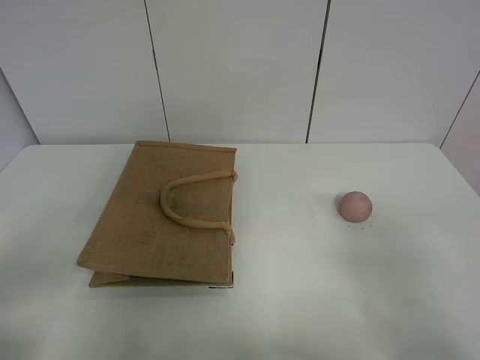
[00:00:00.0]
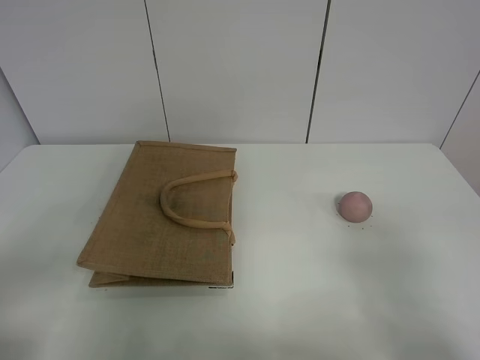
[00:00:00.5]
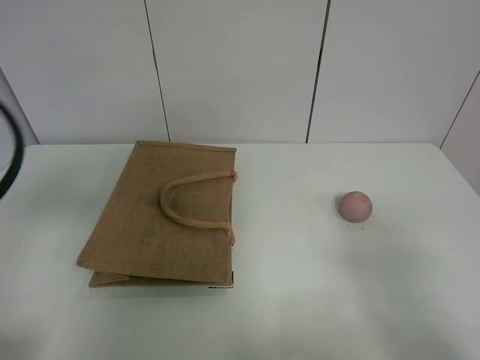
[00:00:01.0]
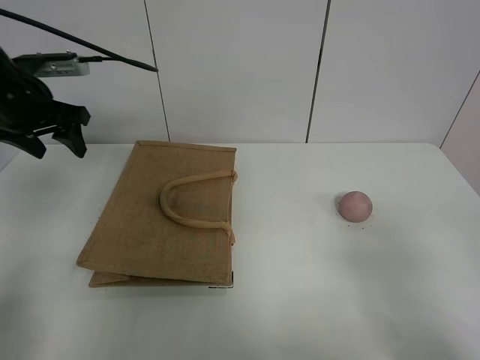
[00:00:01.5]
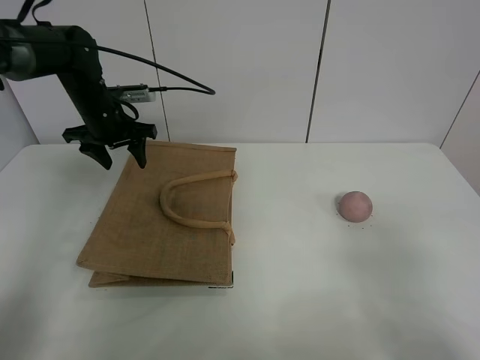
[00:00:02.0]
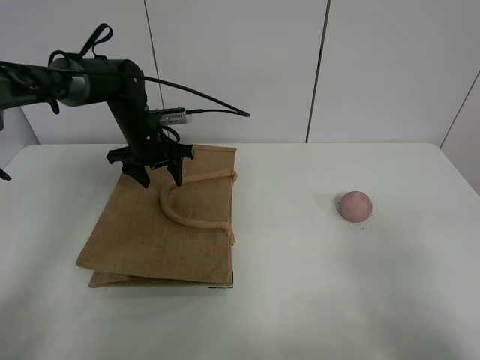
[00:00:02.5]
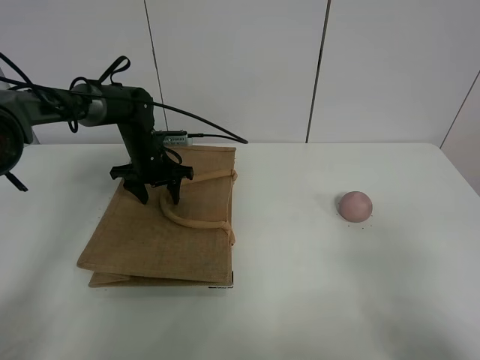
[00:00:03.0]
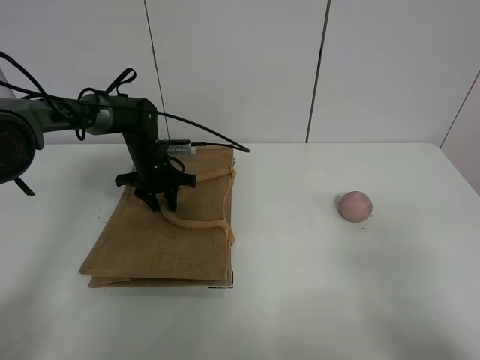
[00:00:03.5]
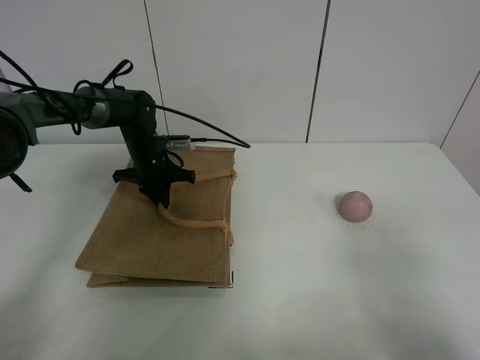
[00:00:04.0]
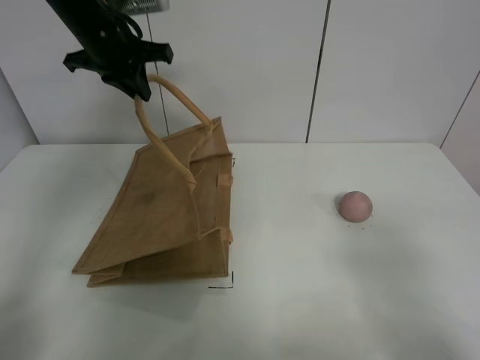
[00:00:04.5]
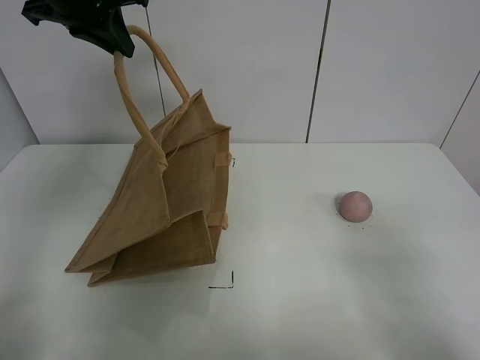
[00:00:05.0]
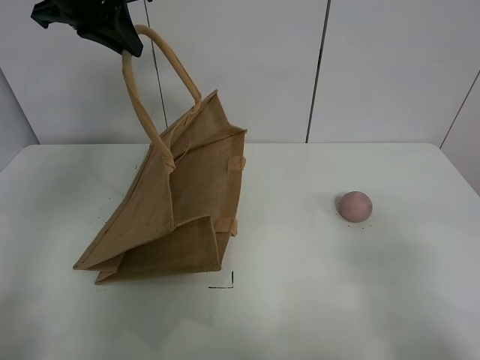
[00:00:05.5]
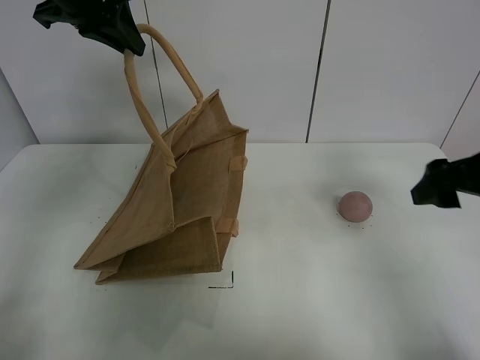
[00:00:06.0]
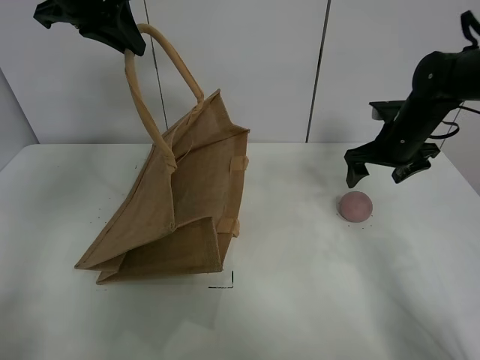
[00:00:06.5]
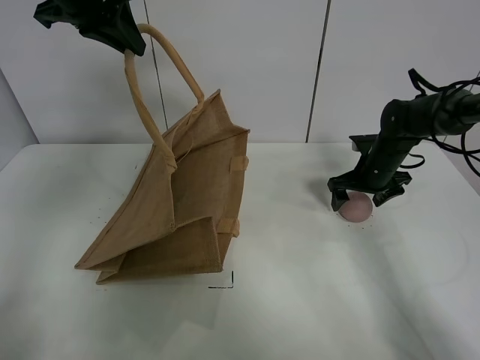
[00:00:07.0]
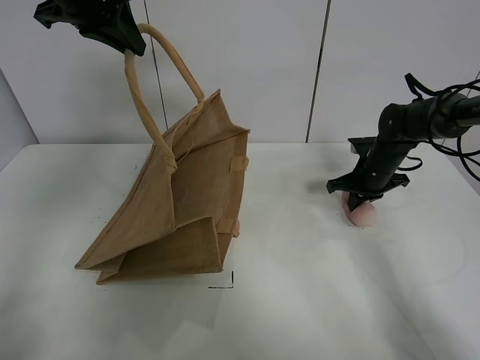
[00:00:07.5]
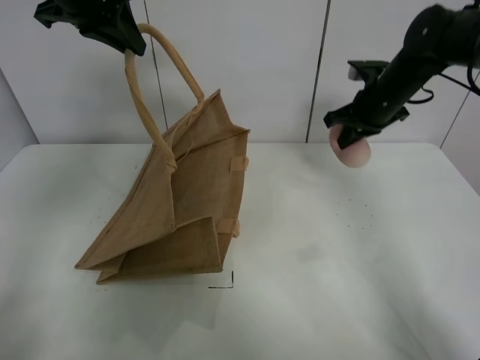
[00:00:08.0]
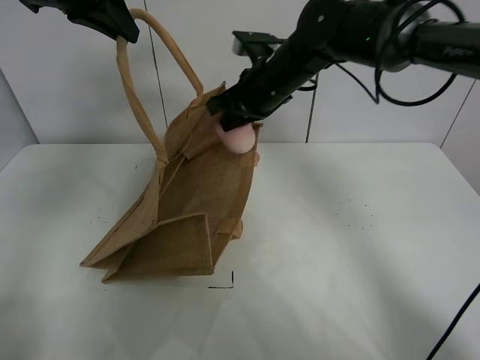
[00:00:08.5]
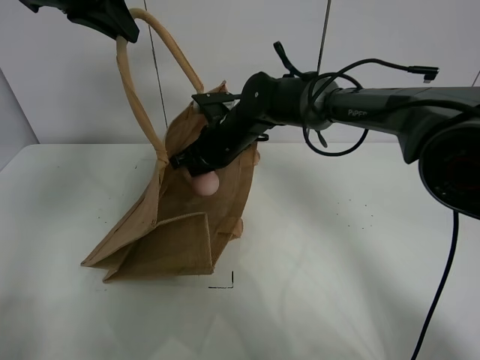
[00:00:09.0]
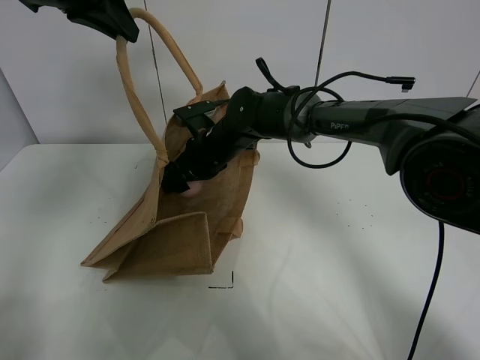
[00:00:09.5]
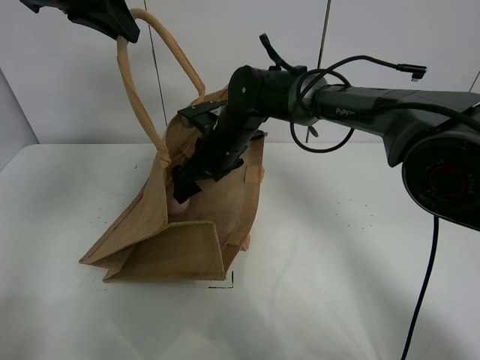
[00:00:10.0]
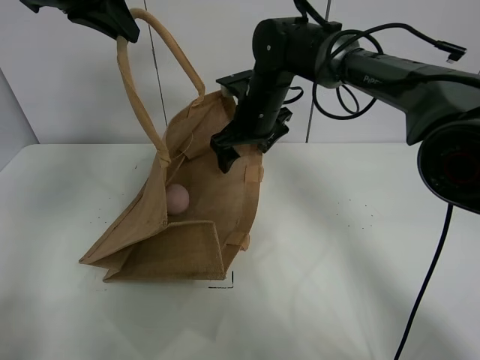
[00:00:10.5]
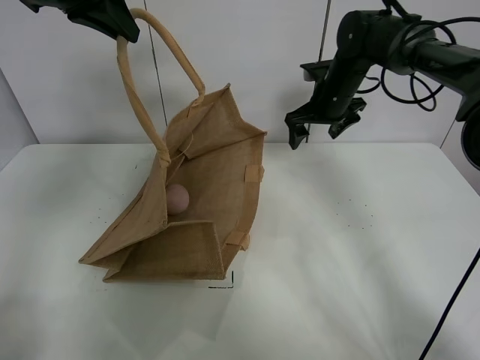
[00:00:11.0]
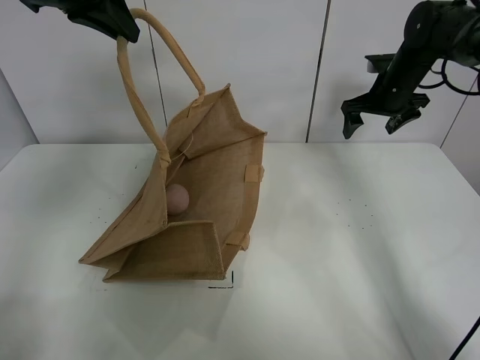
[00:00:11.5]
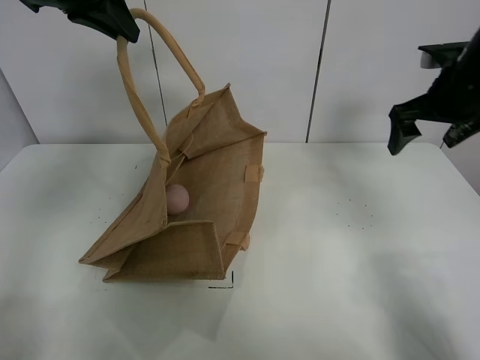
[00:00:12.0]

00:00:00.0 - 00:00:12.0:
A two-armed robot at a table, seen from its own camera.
Task of the whole recording: open the brown linen bag and put the peach in the bag.
Step, 00:00:00.0 - 00:00:04.5: Lift the handbag with left gripper.
Step, 00:00:05.0 - 00:00:07.5: Grasp the peach with right gripper.
Step, 00:00:08.0 - 00:00:10.5: Place the peach in the handbag with right gripper.
00:00:00.0 - 00:00:02.0: The left gripper shifts approximately 50 cm forward.
00:00:02.0 - 00:00:04.0: The left gripper moves downward and to the right, some 10 cm, and closes up.
00:00:04.0 - 00:00:06.0: The right gripper heads forward, covering roughly 25 cm. The left gripper heads upward, covering some 30 cm.
00:00:06.0 - 00:00:08.0: The right gripper is displaced forward by approximately 20 cm, and closes up.
00:00:08.0 - 00:00:10.0: The right gripper is displaced to the left by approximately 25 cm, and opens its fingers.
00:00:10.0 - 00:00:12.0: The right gripper is displaced to the right by approximately 30 cm.

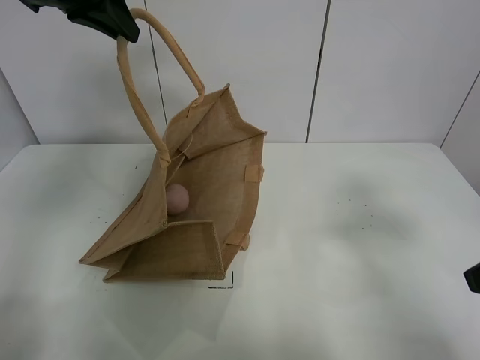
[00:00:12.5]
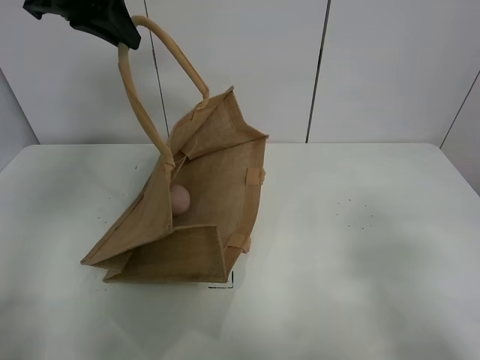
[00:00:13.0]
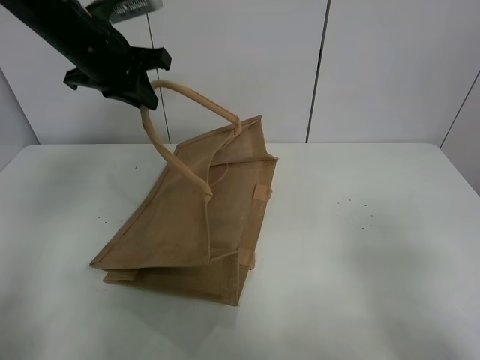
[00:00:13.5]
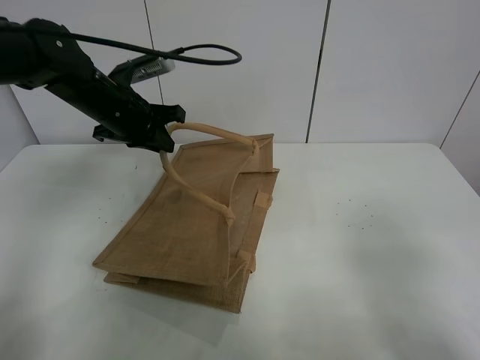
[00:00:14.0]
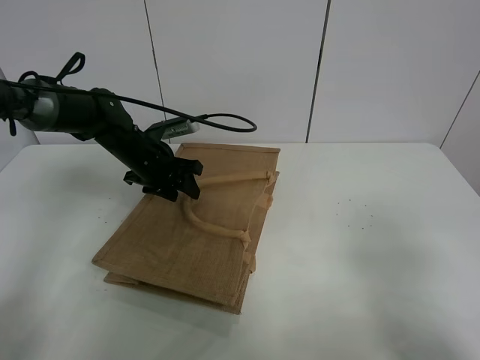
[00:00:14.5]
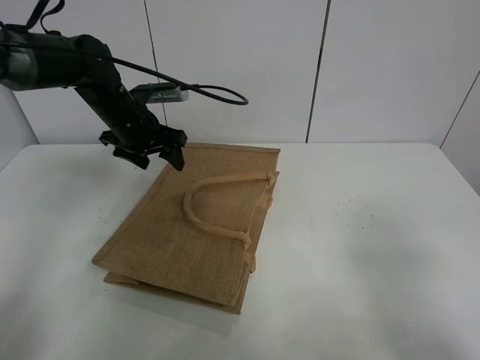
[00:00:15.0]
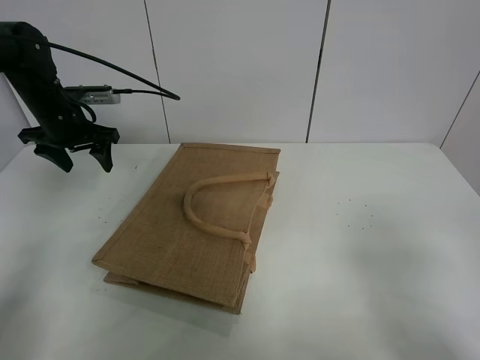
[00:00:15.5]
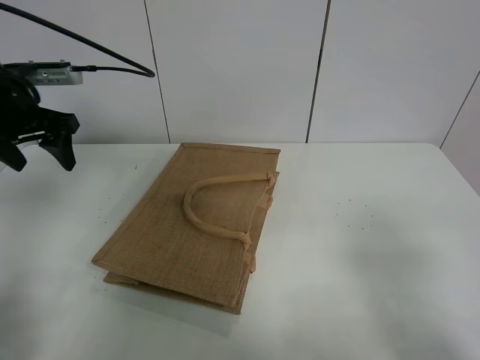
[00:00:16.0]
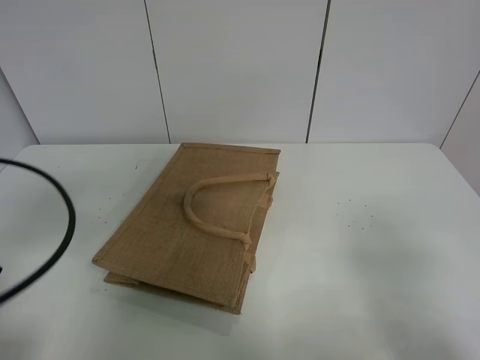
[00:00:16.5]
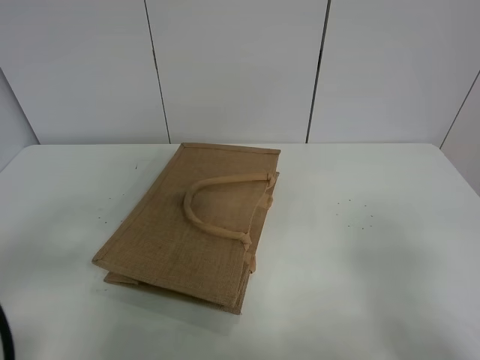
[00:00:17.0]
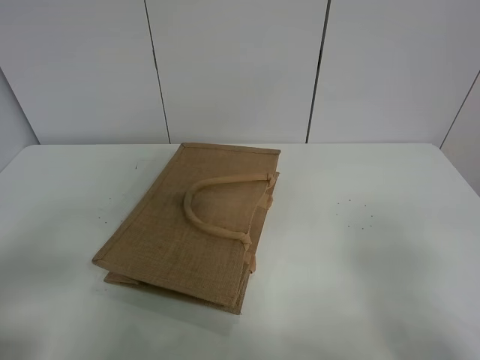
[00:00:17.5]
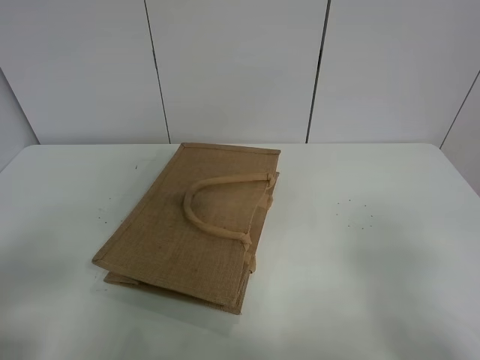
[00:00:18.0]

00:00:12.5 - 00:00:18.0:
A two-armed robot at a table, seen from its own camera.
Task of the whole recording: open the brown linen bag and put the peach in the bag.
Step, 00:00:12.5 - 00:00:15.0: Put down the handbag with left grippe.
00:00:12.5 - 00:00:14.5: The right gripper travels backward by about 10 cm, while the left gripper shifts about 30 cm downward, and opens.
00:00:14.5 - 00:00:16.0: The left gripper heads upward, to the left and backward, covering about 20 cm.
00:00:16.0 - 00:00:18.0: The left gripper shifts some 35 cm backward.
